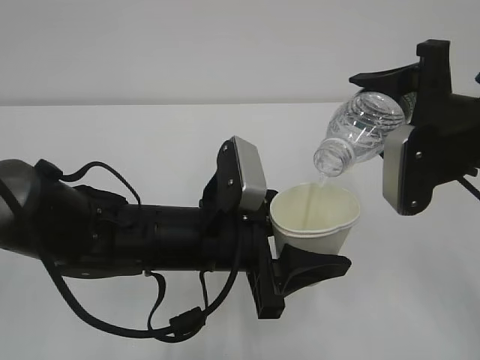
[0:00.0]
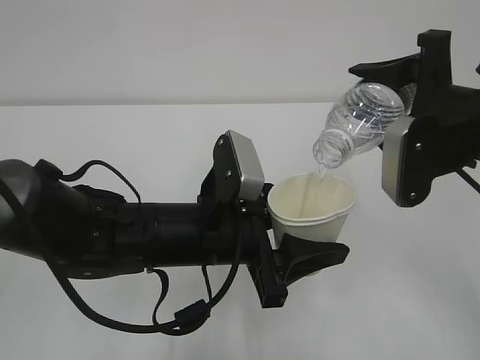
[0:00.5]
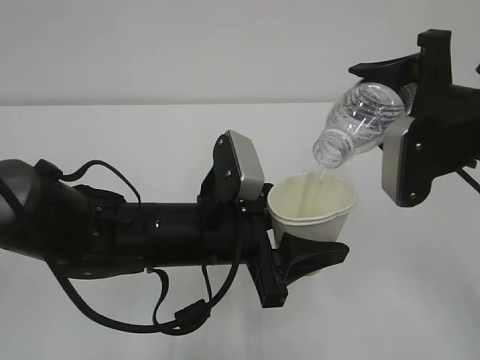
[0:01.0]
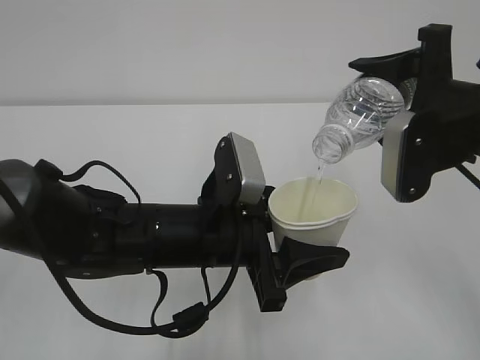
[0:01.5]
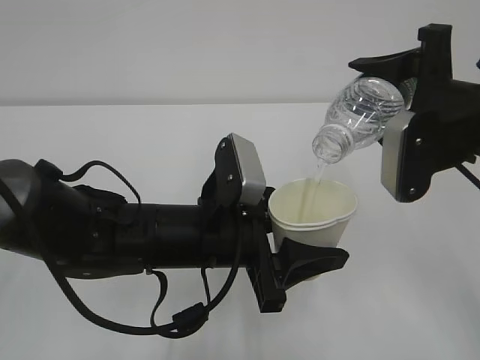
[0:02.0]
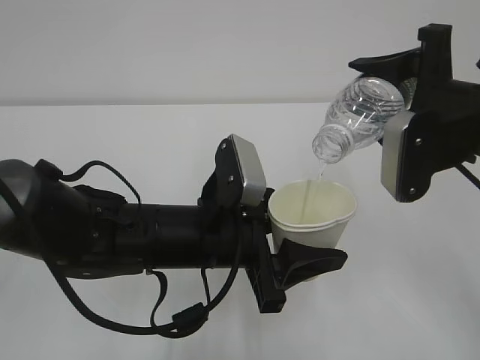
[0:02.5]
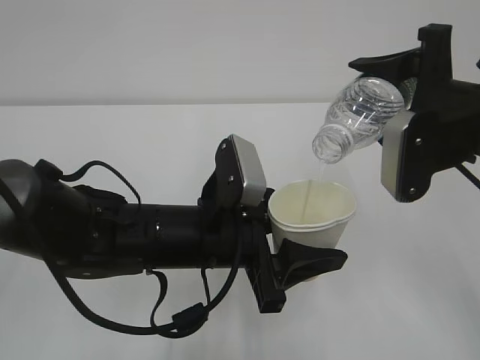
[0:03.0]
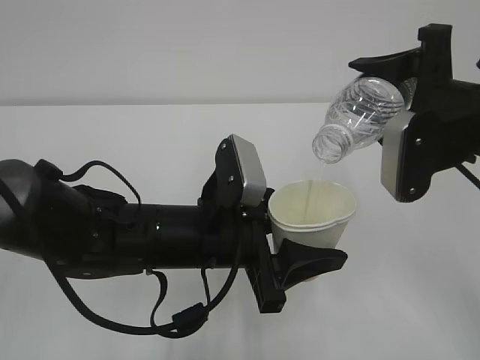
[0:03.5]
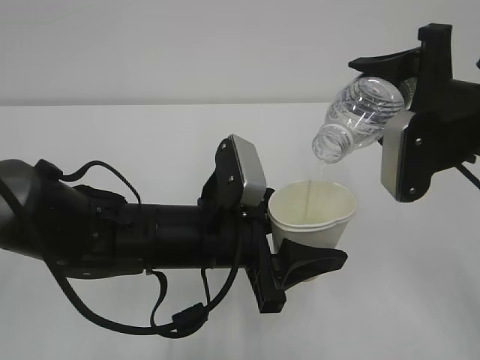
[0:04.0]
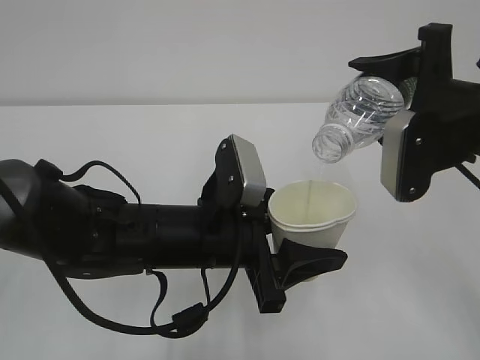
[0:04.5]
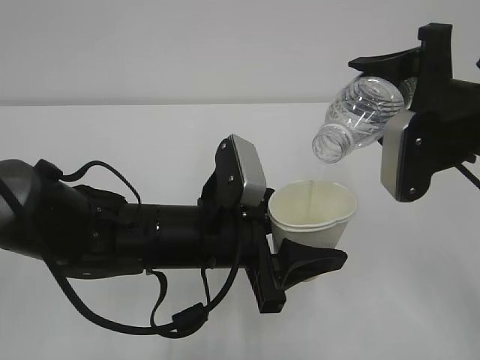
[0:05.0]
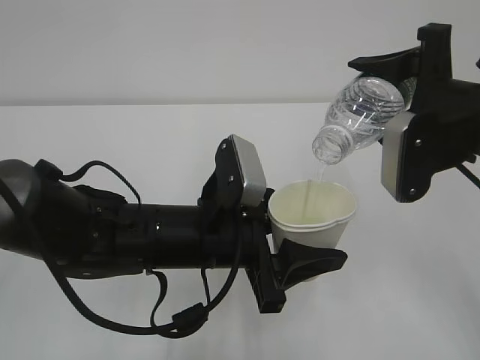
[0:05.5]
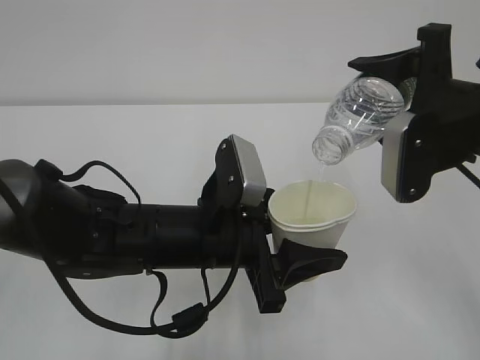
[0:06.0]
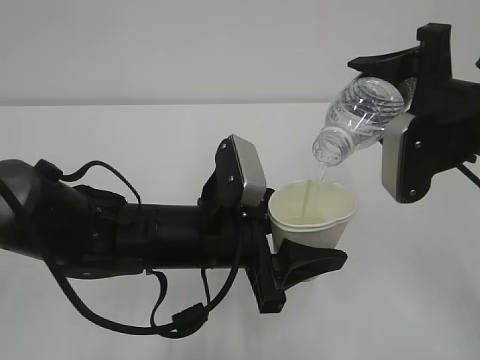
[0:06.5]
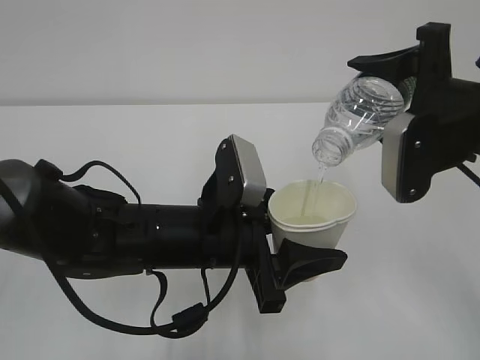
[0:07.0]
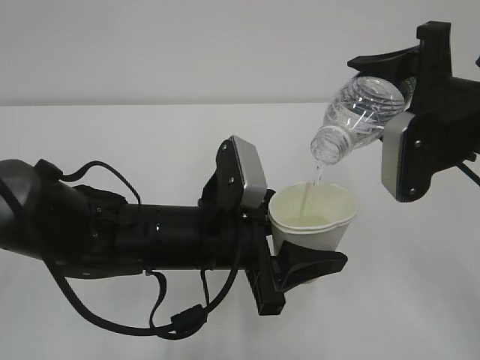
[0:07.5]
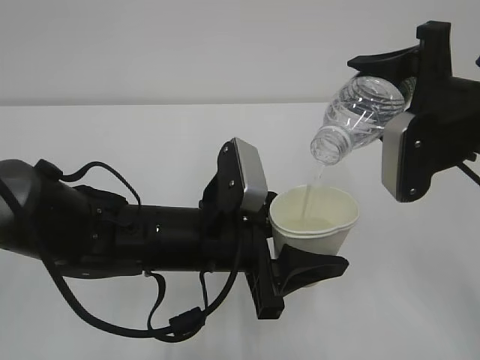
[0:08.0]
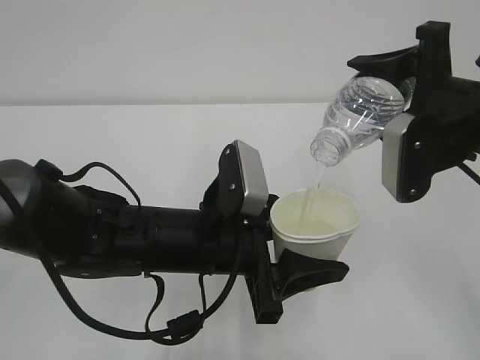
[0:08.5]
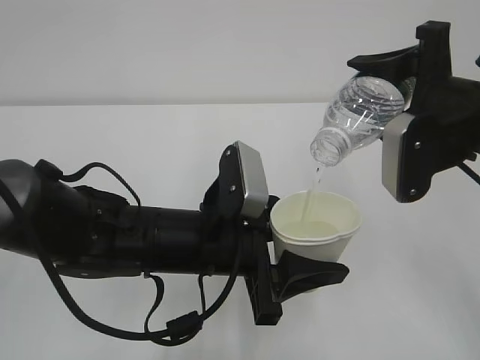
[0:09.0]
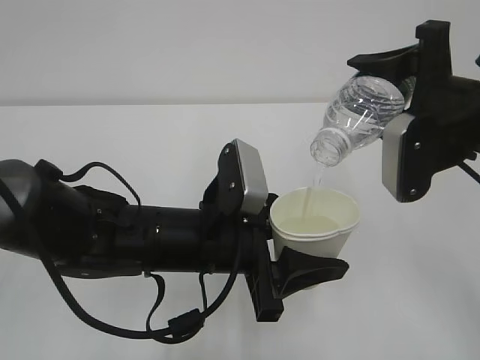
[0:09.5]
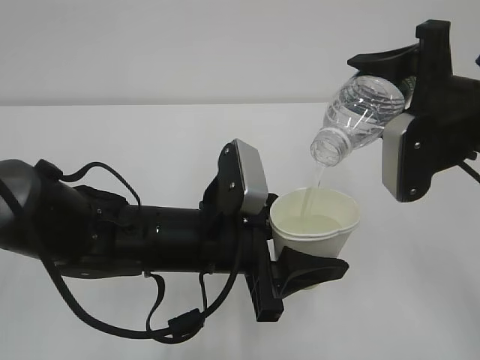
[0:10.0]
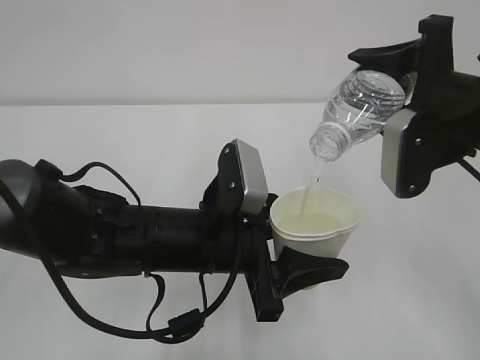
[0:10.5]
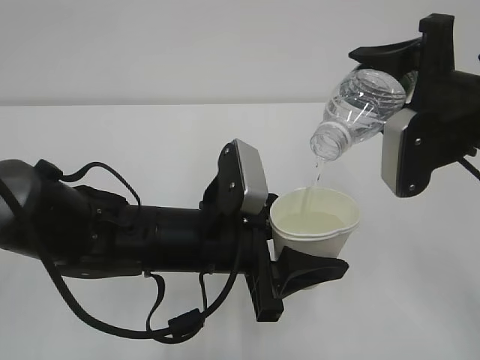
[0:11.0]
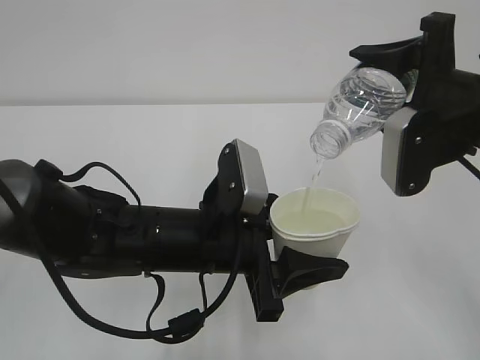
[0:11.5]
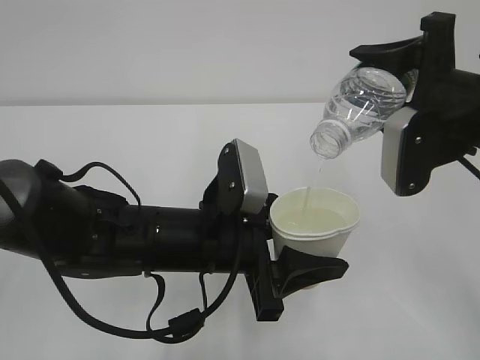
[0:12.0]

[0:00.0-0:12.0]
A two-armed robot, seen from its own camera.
0.0 to 8.0 s: Neither gripper changes place.
8.0 to 12.0 s: Both grippers stay about where they are.

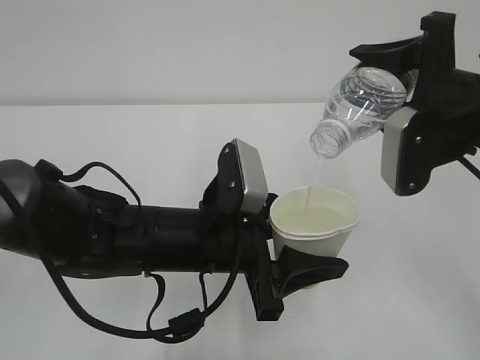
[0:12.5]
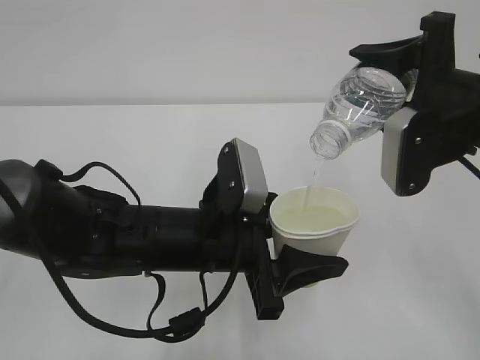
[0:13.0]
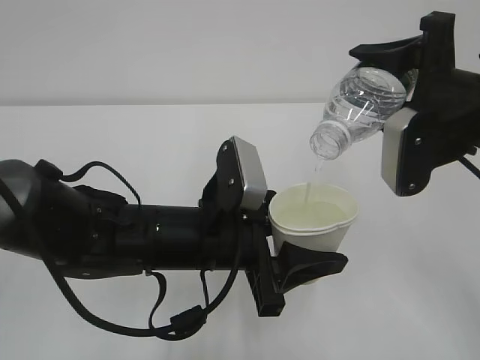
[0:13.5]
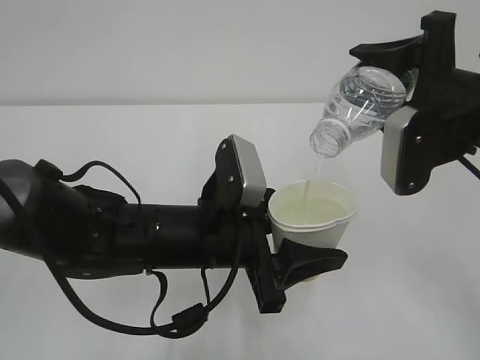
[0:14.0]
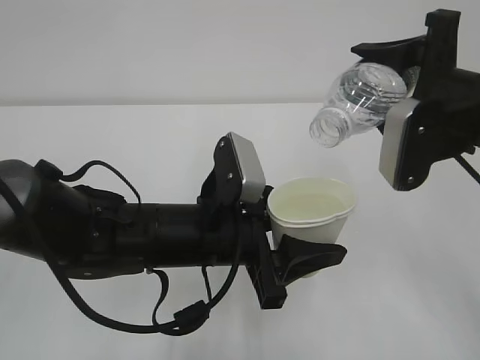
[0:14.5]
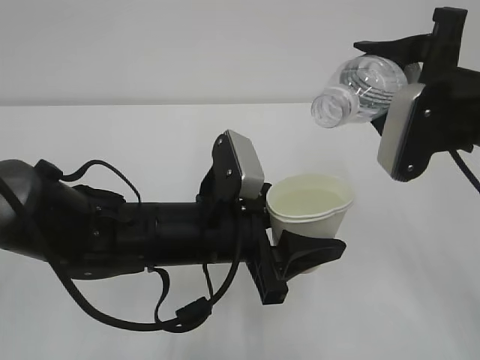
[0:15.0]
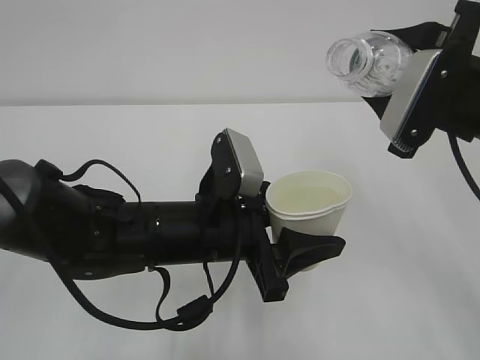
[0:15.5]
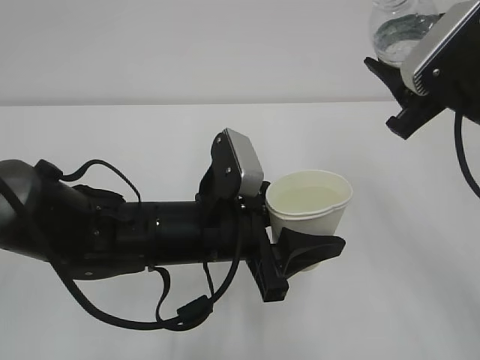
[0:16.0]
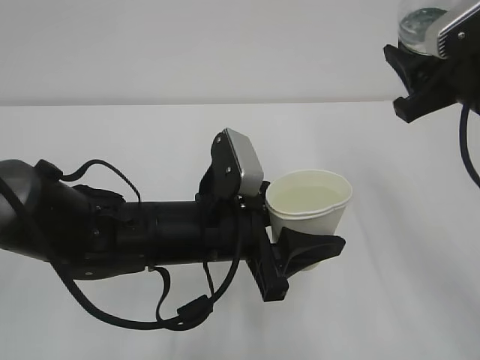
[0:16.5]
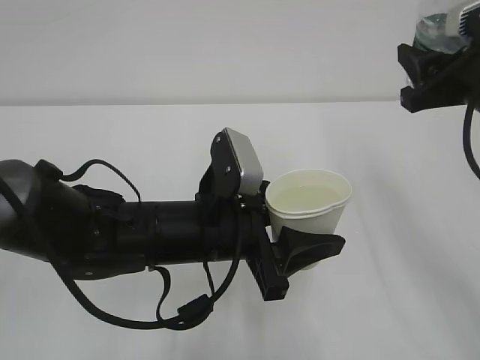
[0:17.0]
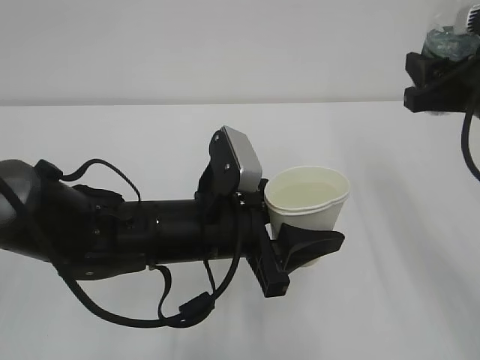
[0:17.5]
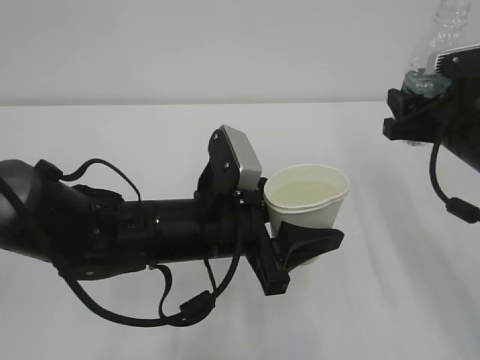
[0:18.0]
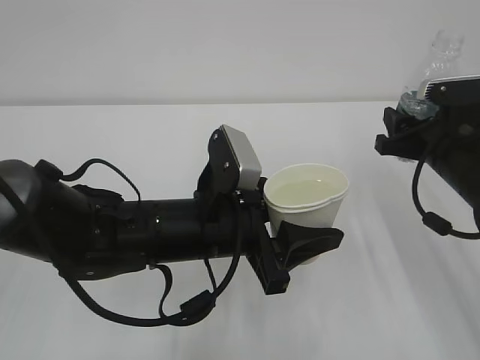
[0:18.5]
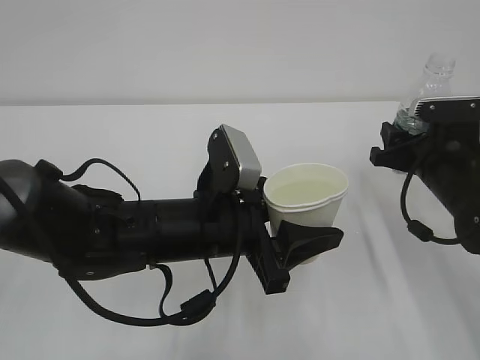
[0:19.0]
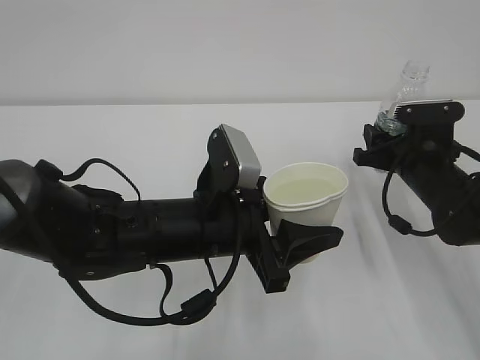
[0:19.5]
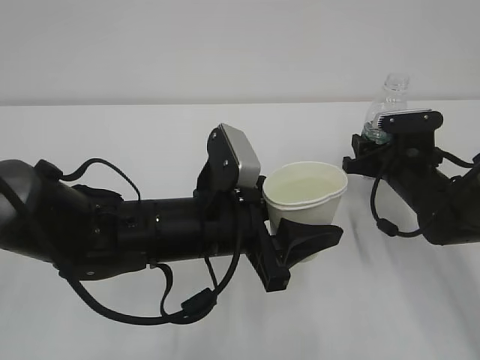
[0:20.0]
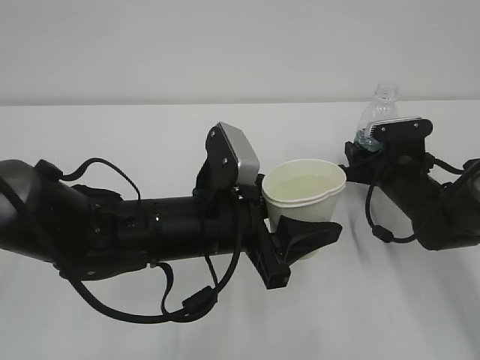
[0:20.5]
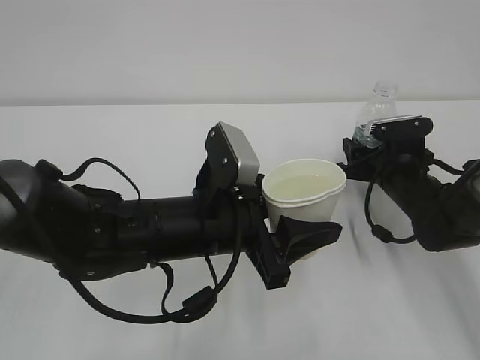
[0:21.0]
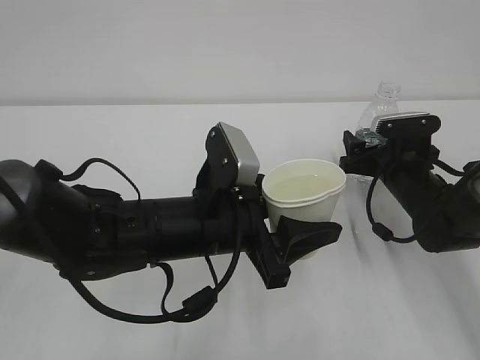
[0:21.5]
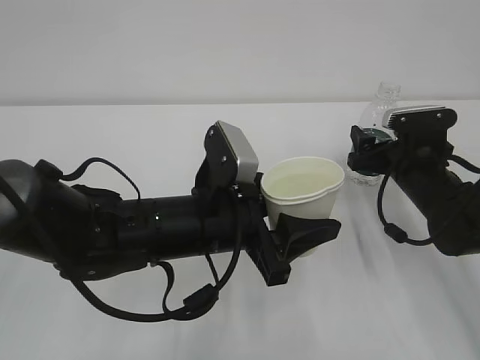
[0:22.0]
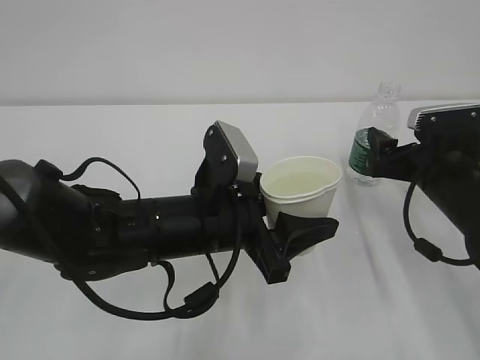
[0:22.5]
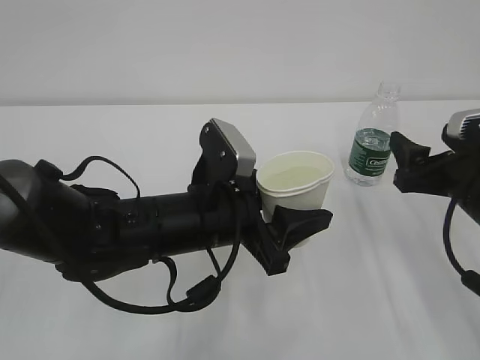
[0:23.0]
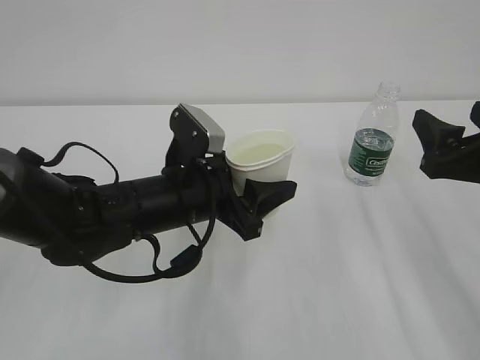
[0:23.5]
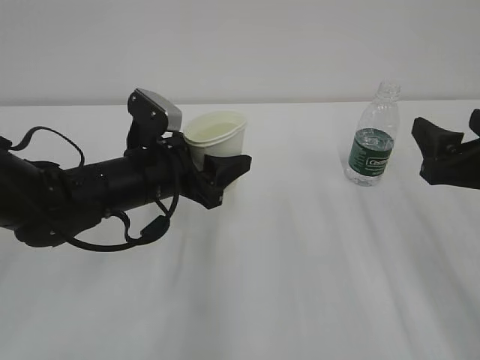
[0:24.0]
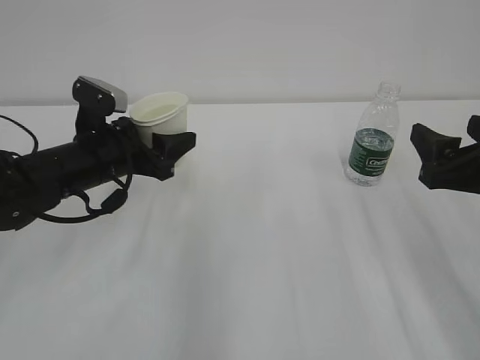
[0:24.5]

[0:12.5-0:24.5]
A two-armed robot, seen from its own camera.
12.5 to 14.5 s: The grippers make only small movements.
16.5 to 18.5 s: The right gripper heads downward, covering roughly 10 cm.
18.5 to 20.5 s: The right gripper goes about 10 cm downward and forward.
20.5 to 22.5 s: The right gripper goes roughly 10 cm backward and upward, and opens up.
22.5 to 24.5 s: The left gripper heads to the left and forward, covering roughly 15 cm; the right gripper travels backward and upward by some 10 cm.

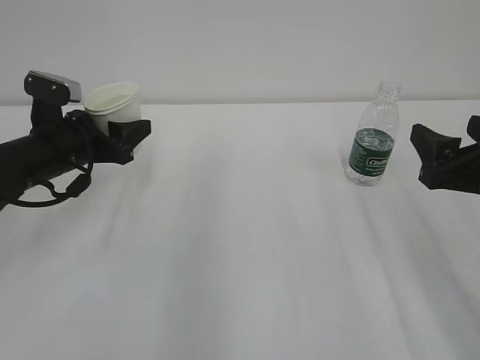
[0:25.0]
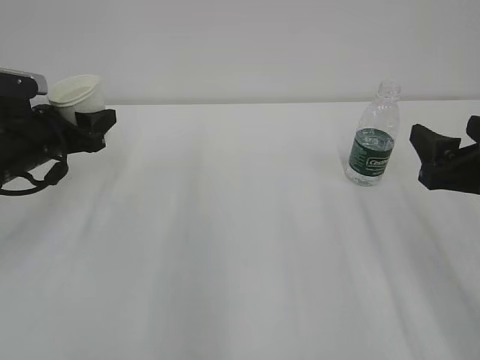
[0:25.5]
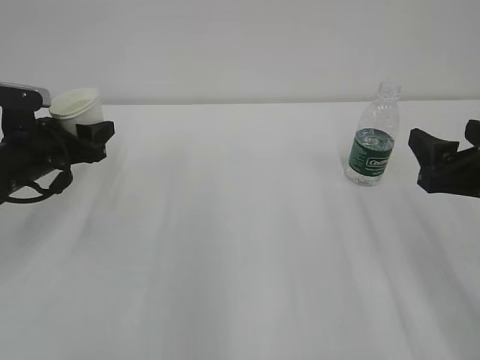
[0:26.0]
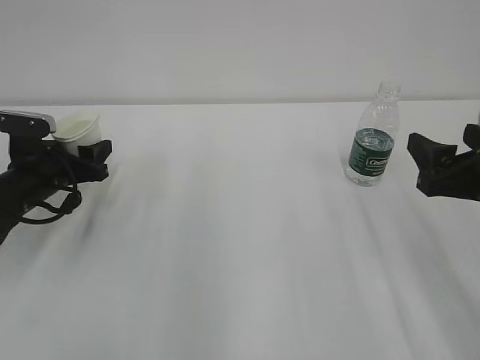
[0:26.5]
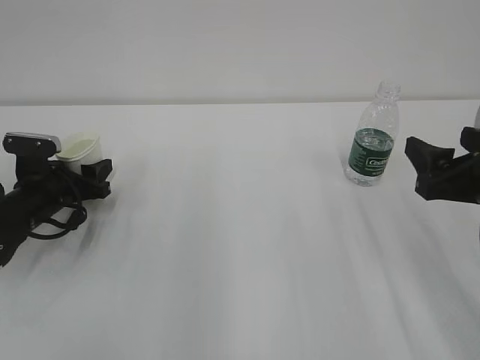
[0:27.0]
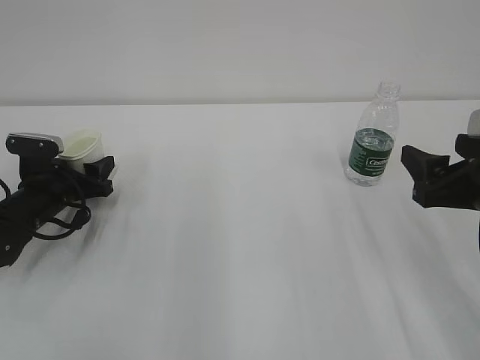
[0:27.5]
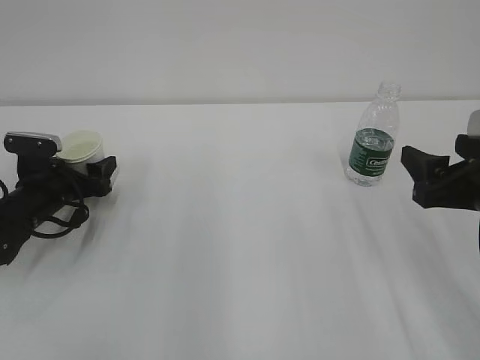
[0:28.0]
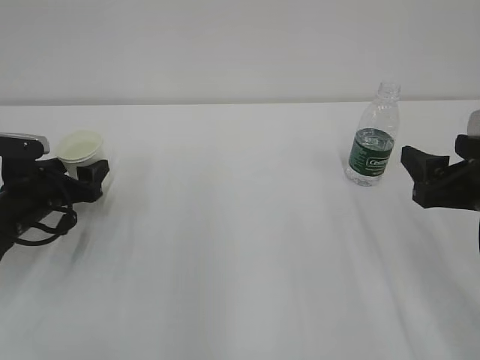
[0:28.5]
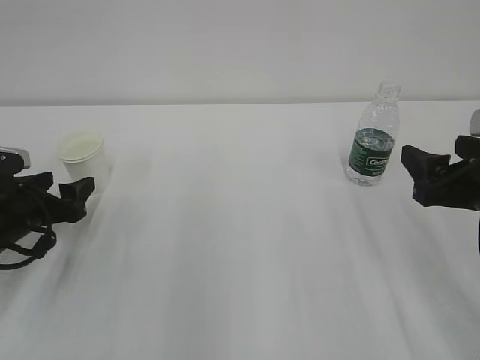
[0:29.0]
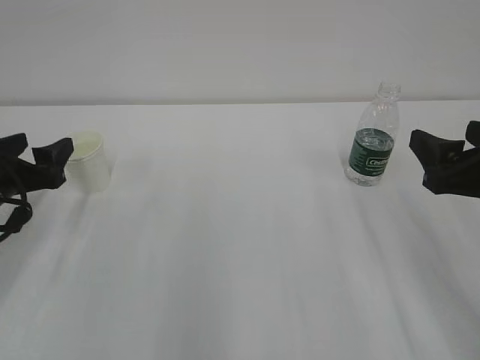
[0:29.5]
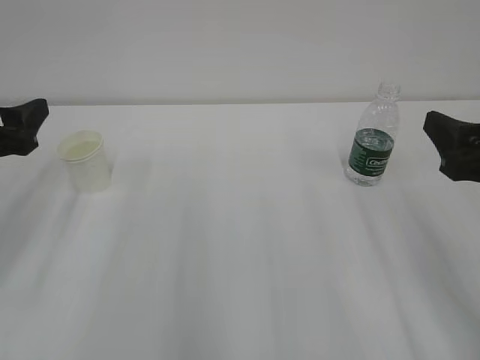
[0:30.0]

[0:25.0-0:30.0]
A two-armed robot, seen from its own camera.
25.0 to 27.5 s: The left gripper heads downward and to the left, covering approximately 10 cm.
27.5 to 30.0 s: The left gripper moves upward and backward, approximately 20 cm, and opens its fingers.
